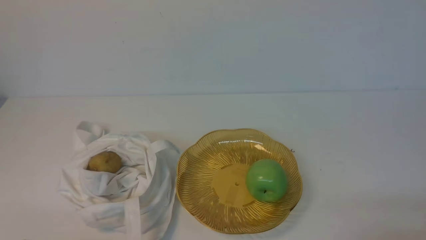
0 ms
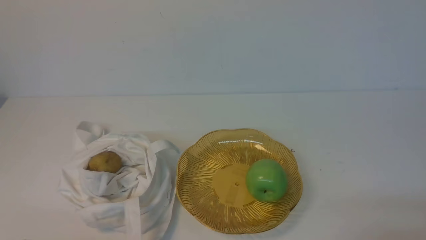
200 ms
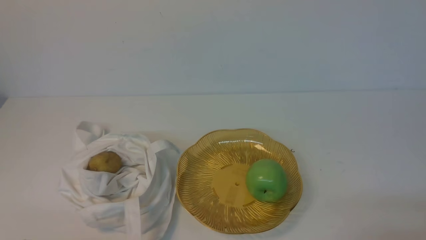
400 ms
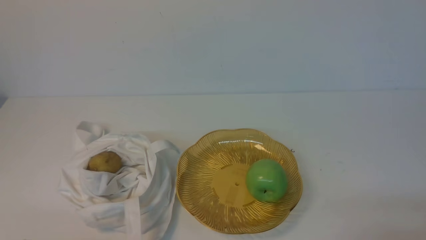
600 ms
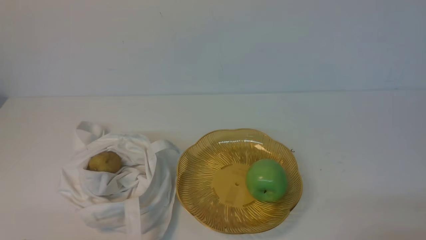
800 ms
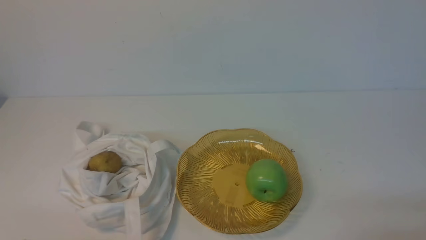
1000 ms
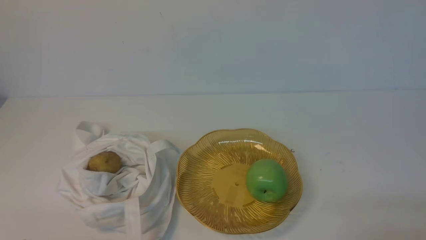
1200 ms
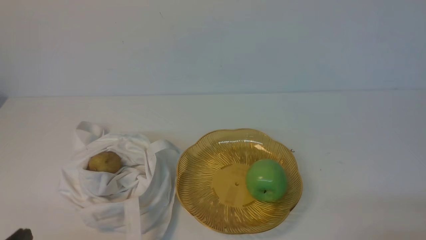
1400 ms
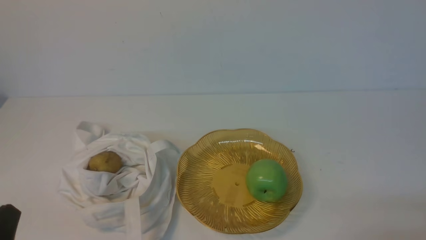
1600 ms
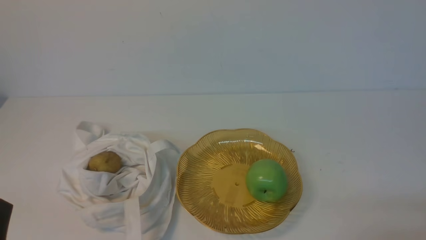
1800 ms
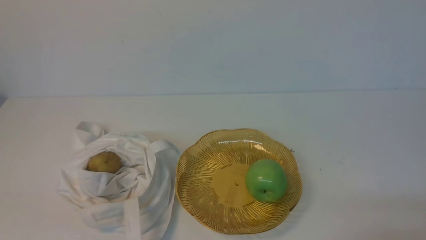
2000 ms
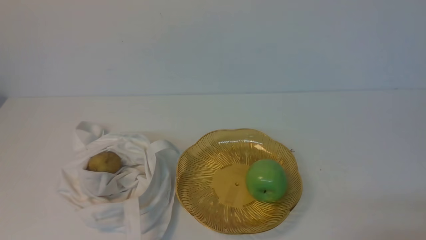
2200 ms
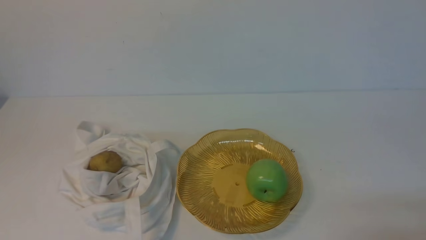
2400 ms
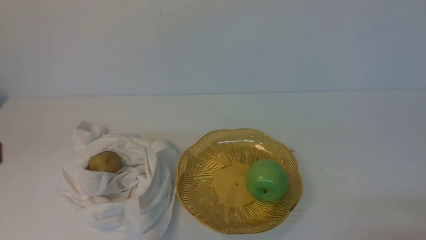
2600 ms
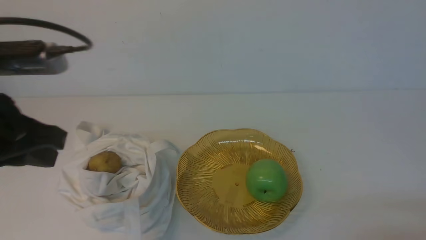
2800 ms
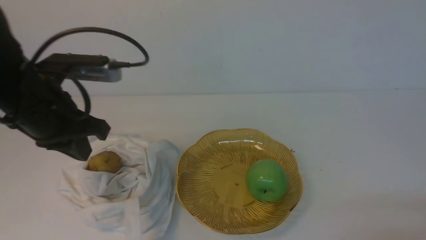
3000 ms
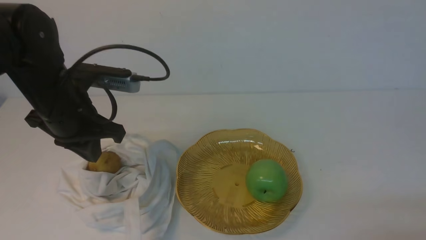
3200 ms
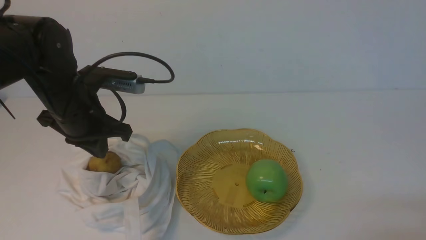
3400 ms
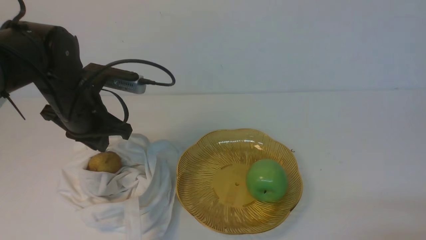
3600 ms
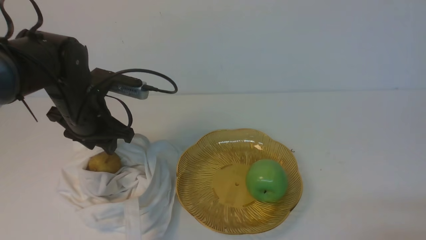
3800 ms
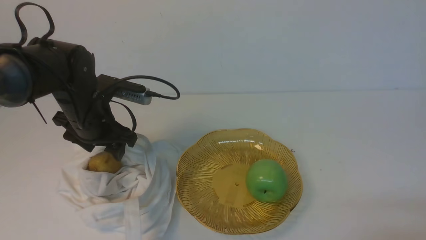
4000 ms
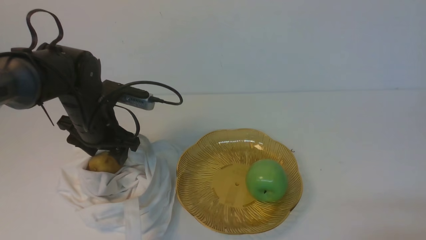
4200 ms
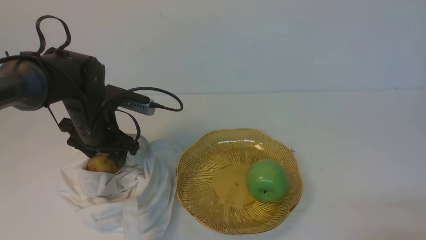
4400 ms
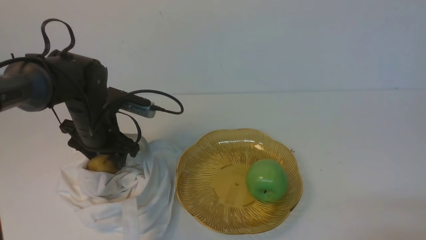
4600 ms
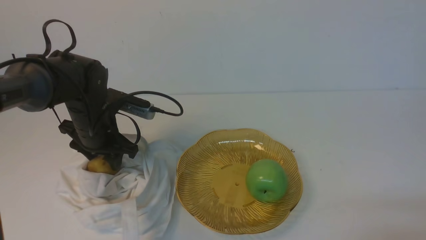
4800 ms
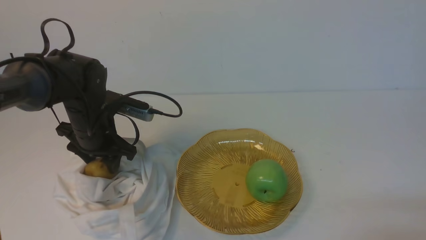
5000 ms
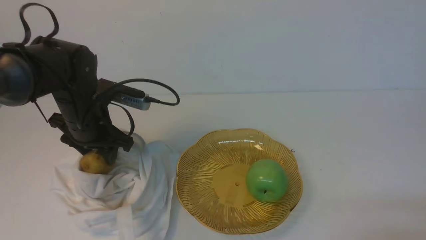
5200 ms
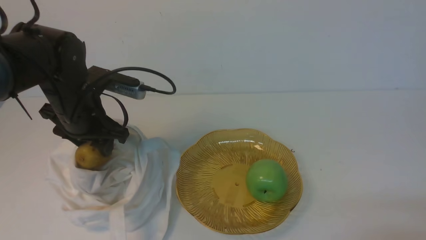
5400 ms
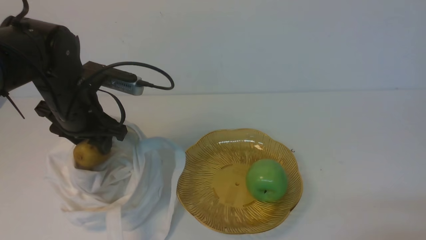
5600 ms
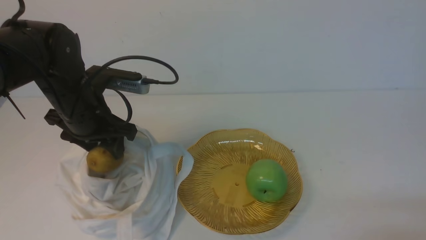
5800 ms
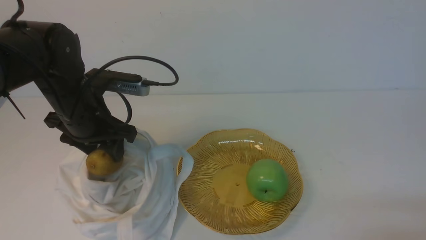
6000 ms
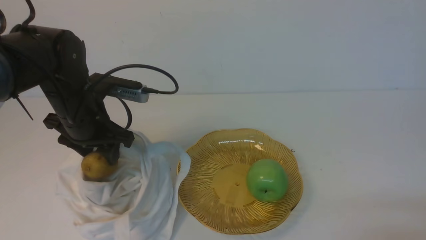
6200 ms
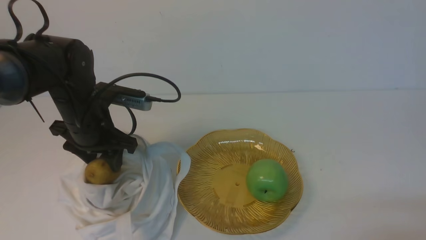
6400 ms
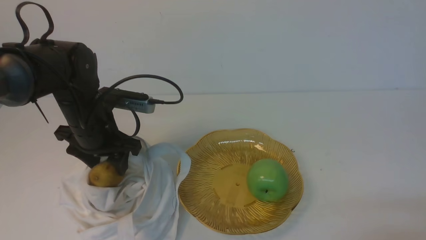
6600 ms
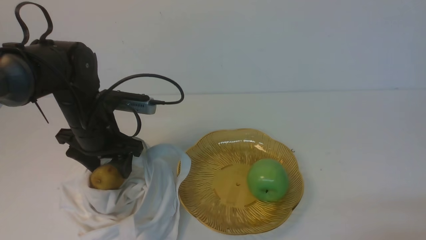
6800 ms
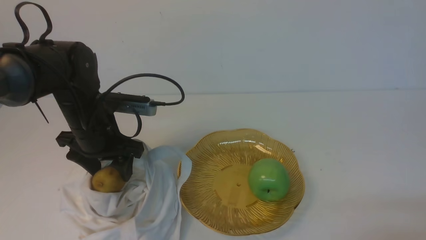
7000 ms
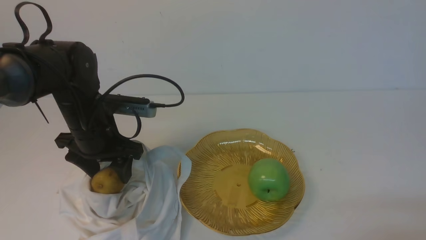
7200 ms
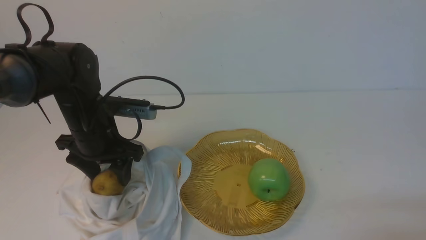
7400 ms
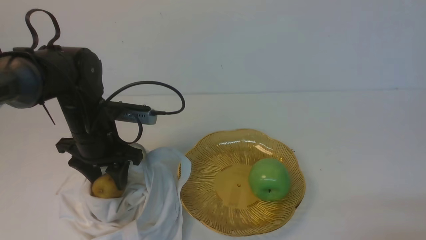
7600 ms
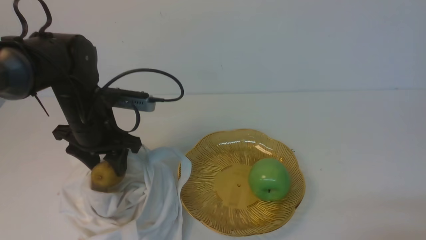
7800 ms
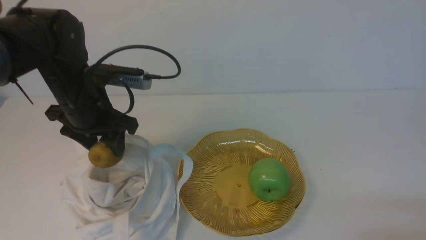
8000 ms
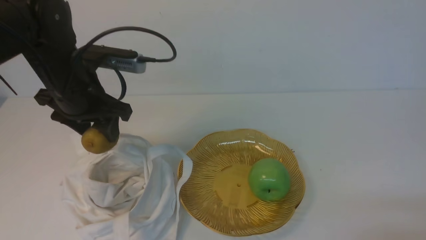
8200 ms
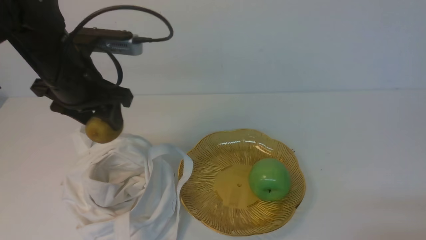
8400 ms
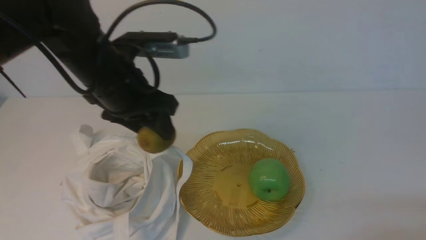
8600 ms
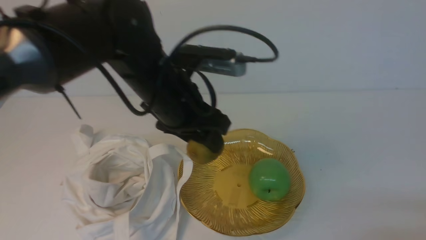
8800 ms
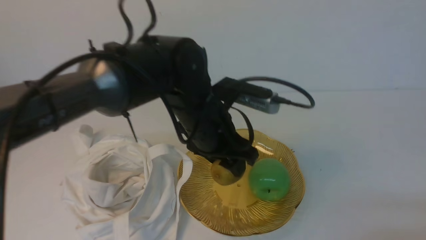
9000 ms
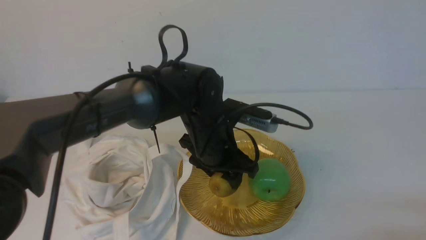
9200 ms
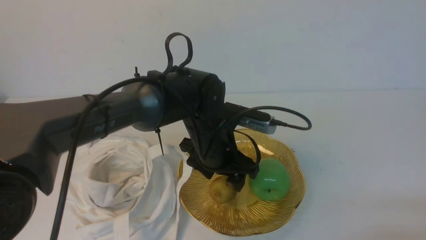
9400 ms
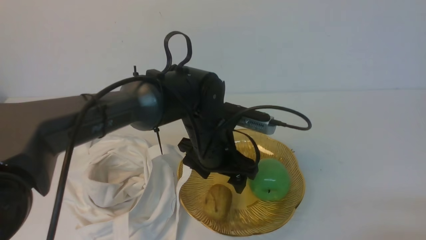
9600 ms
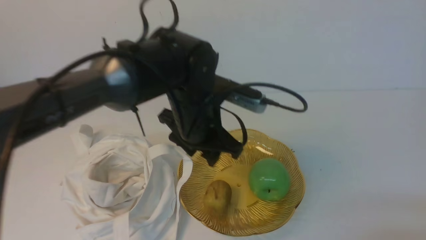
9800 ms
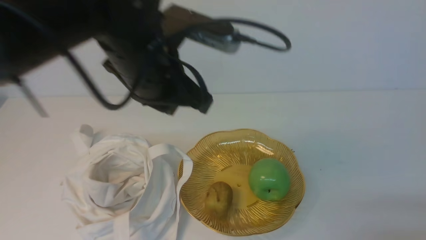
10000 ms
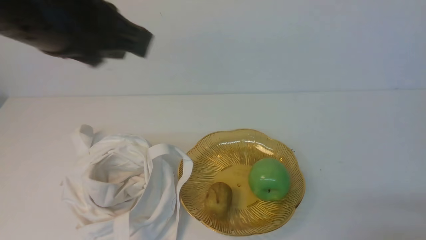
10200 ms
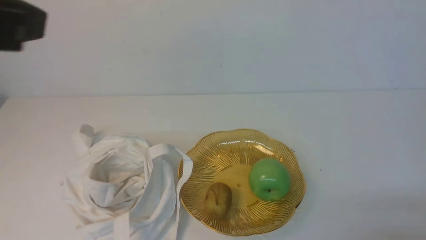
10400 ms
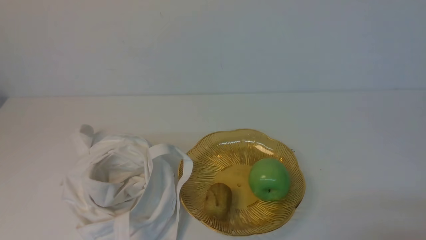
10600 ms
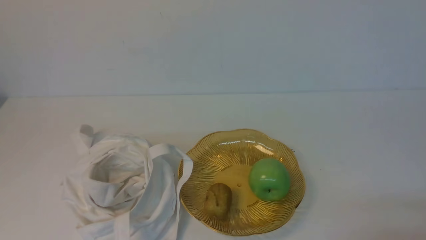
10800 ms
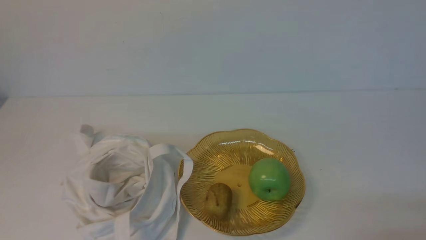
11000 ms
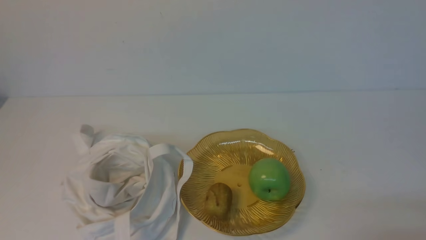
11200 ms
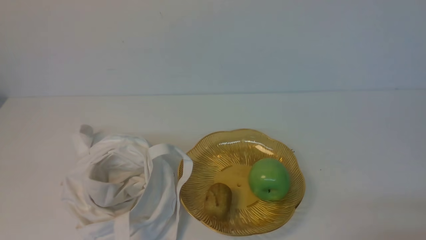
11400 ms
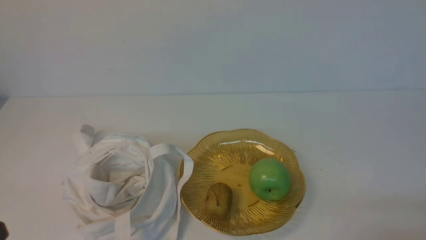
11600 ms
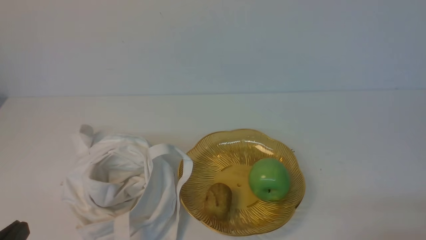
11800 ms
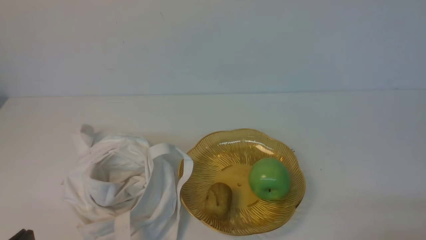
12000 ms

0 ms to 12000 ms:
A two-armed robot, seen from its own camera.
Step, 0 ms to 7800 ms: use the left arm to grab a kiwi from the bag.
Step, 8000 ms to 9600 ms: use the left arm to put the kiwi into the empty plate on the right.
1600 ms to 3000 ms: The left gripper goes some 25 cm forward and upward.
3000 ms to 4400 ms: The left gripper travels downward and forward by roughly 20 cm, and opens.
4400 ms to 6000 ms: The left gripper goes about 5 cm upward.
6000 ms to 7600 ms: There are only small adjustments of the grippers.
7600 ms to 9000 ms: The left gripper heads to the right, covering roughly 15 cm.
9000 ms to 10400 ms: The left gripper travels upward, backward and to the left by roughly 30 cm, and closes its fingers.
10400 ms to 12000 ms: The left gripper goes approximately 30 cm downward and backward.

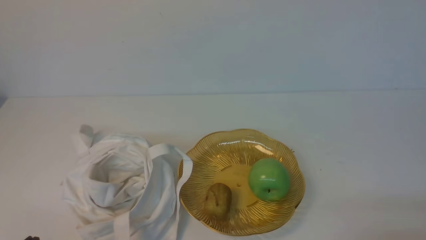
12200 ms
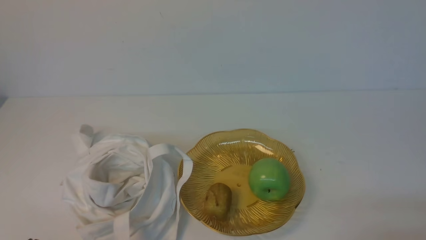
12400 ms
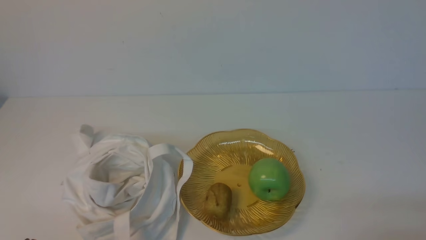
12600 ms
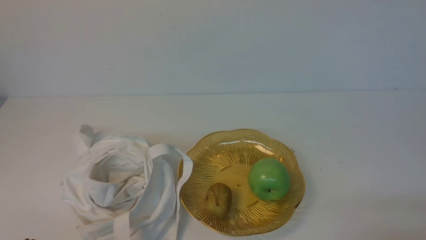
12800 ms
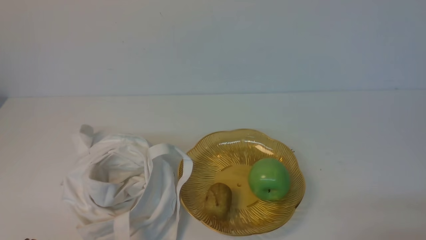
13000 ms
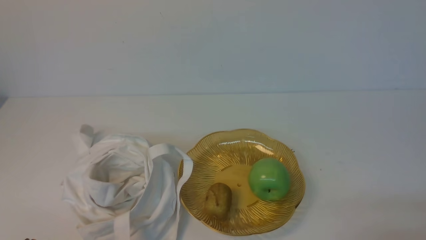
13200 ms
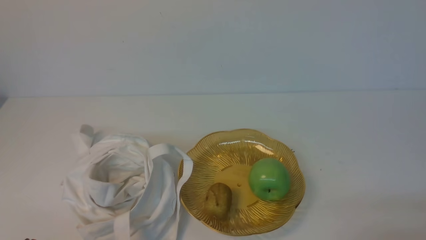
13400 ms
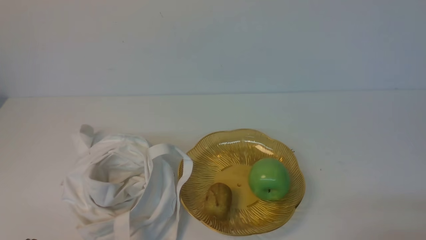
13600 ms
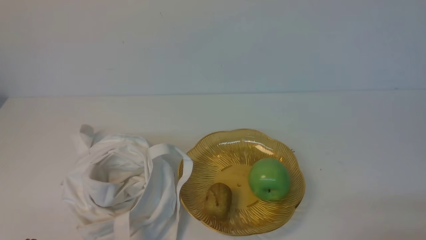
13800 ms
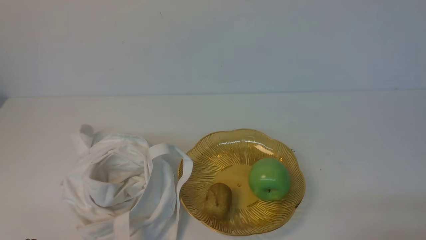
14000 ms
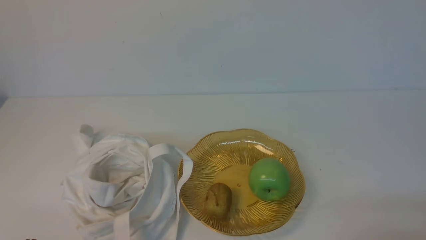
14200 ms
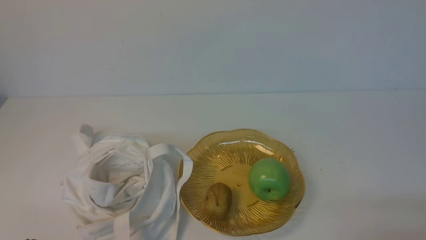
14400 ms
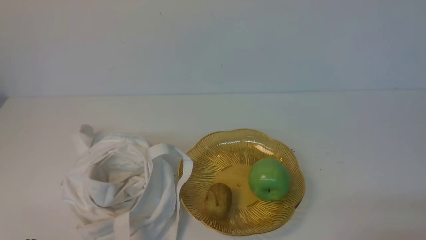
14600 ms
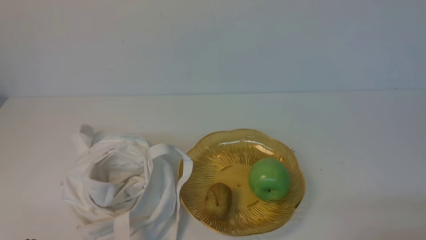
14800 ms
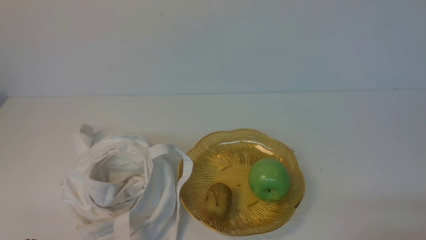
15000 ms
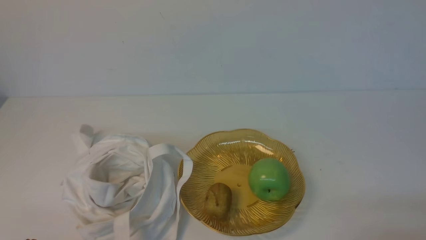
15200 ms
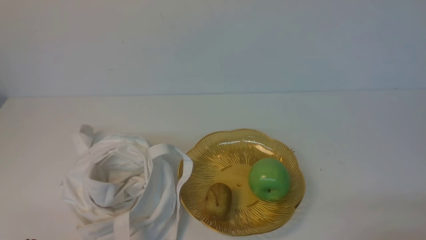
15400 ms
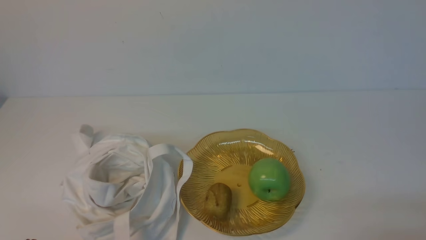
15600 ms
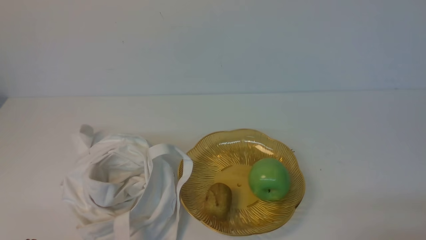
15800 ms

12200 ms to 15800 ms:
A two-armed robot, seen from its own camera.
14000 ms to 15800 ms: The two grippers keep their place.

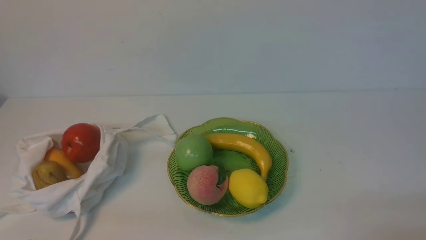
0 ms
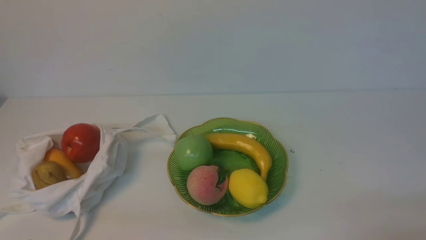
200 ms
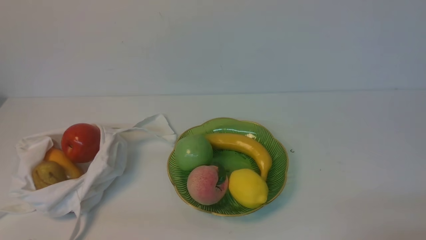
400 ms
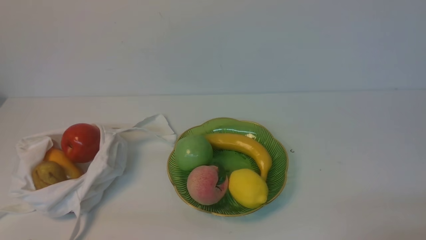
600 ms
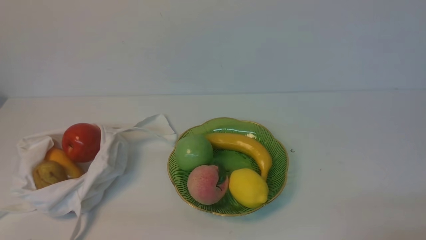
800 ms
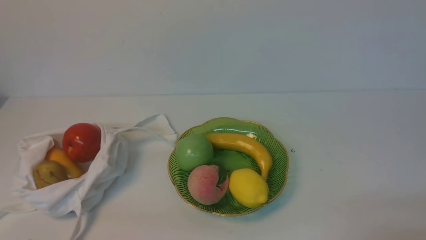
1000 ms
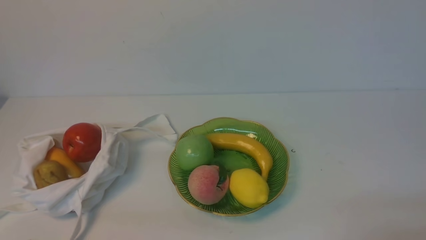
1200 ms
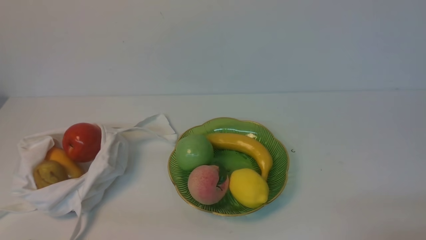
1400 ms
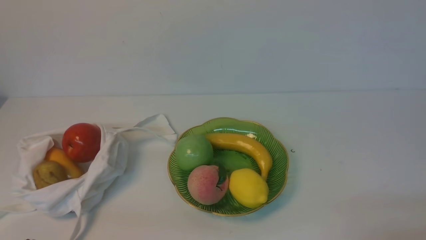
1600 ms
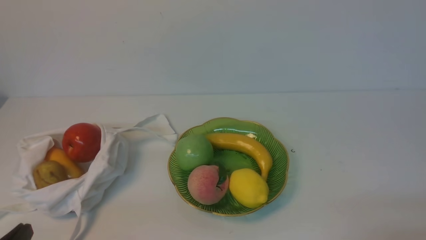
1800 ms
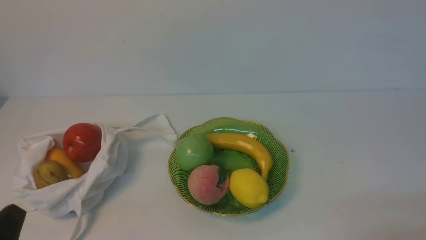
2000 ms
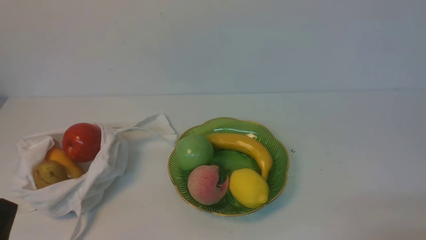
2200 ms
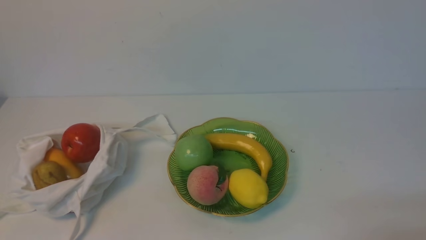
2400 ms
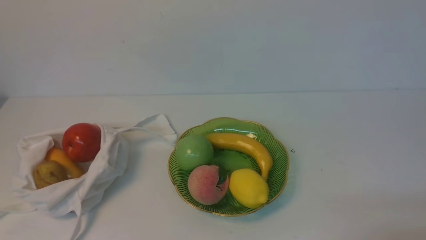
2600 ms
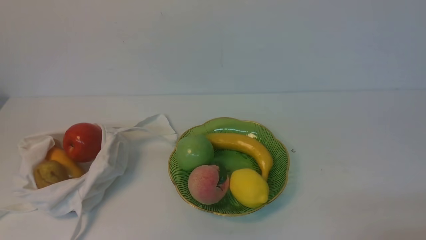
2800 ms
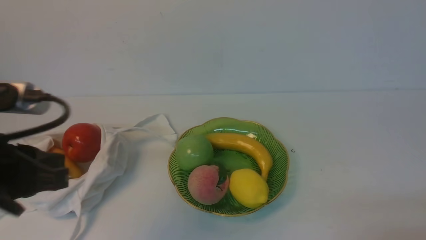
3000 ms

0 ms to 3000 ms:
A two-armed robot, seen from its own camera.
1600 ms to 3000 ms: The left gripper moves upward and forward, about 20 cm.
